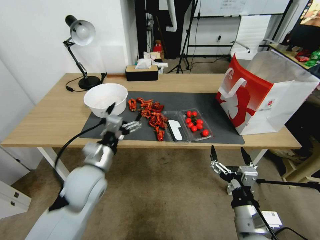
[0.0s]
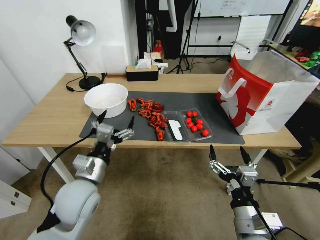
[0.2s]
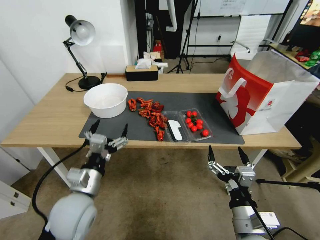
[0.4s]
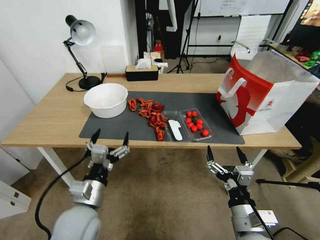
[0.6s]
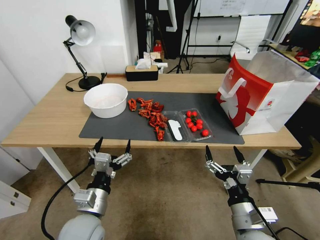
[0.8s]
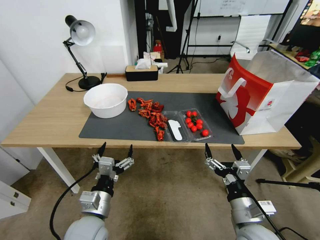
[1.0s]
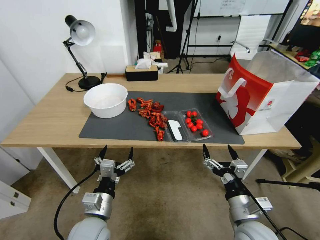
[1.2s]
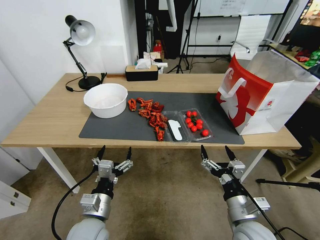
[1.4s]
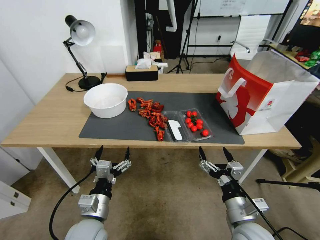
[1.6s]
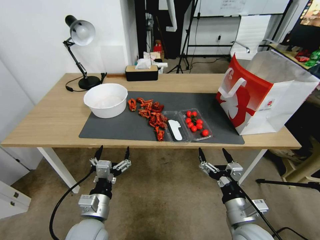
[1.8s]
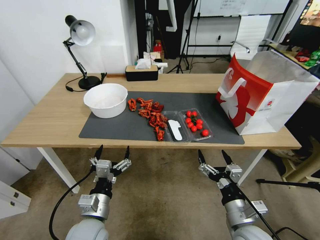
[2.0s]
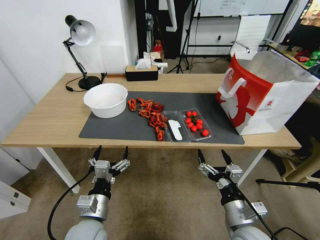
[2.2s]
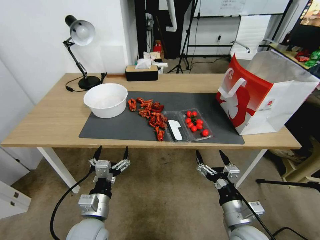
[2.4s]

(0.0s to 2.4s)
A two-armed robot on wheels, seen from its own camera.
0.0s - 1.2s: The left gripper travels backward and downward by about 15 cm.
1.2s - 2.4s: The grippers stay close to where they were, moving slightly.
